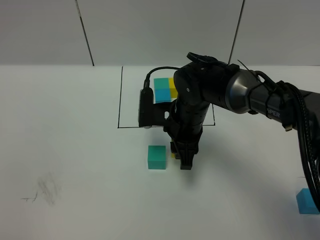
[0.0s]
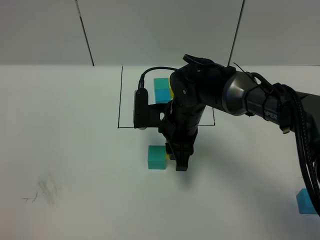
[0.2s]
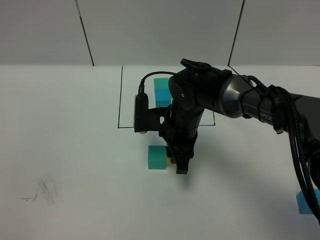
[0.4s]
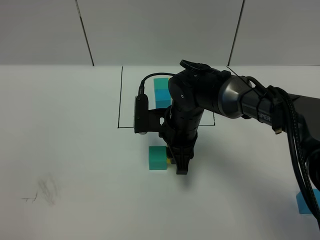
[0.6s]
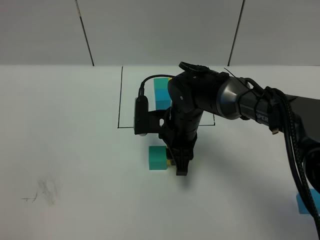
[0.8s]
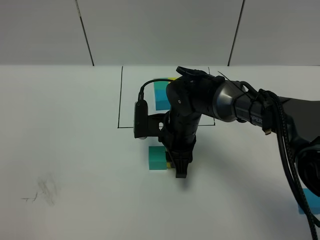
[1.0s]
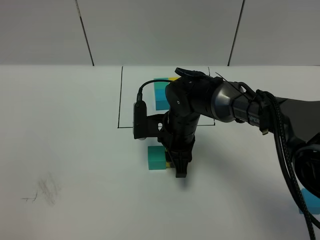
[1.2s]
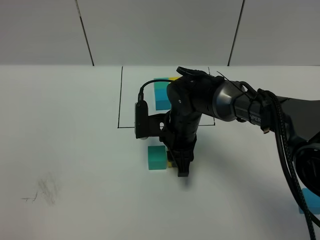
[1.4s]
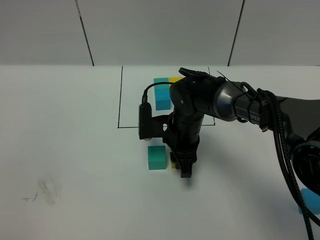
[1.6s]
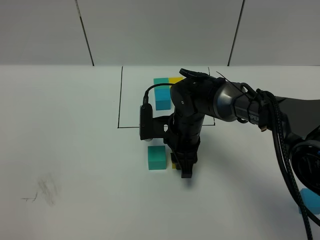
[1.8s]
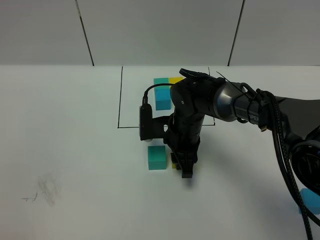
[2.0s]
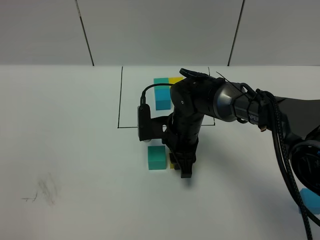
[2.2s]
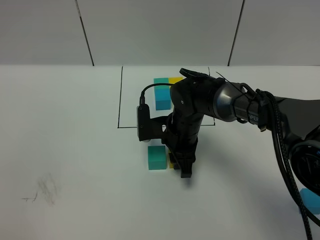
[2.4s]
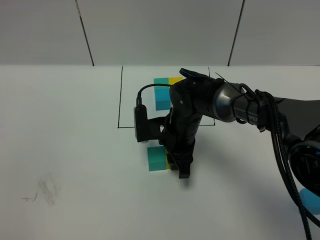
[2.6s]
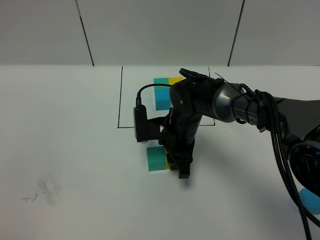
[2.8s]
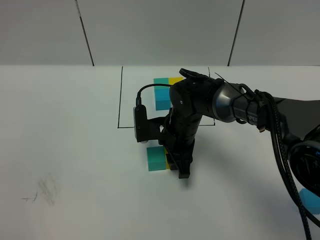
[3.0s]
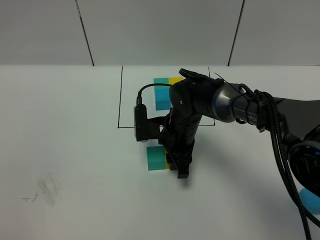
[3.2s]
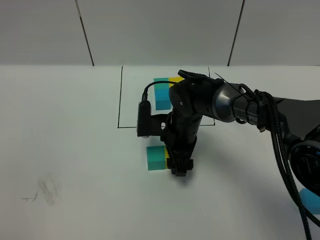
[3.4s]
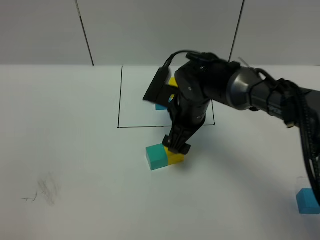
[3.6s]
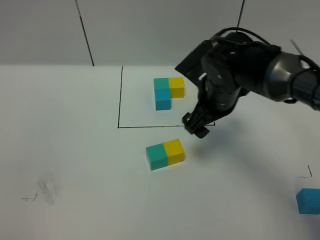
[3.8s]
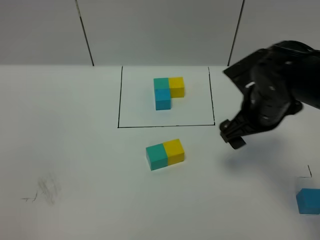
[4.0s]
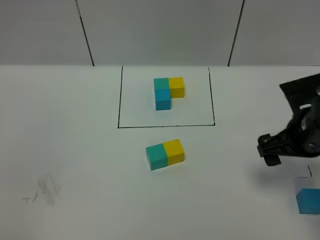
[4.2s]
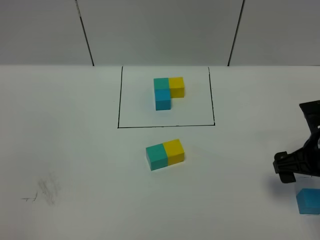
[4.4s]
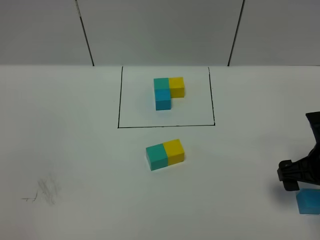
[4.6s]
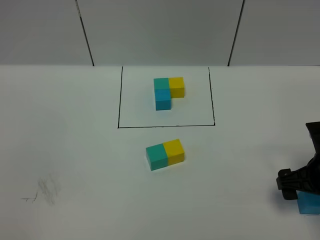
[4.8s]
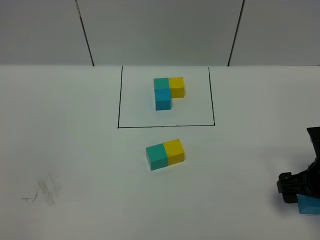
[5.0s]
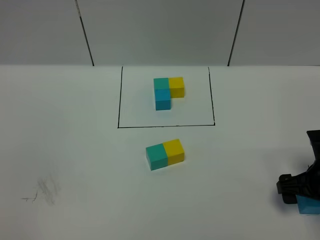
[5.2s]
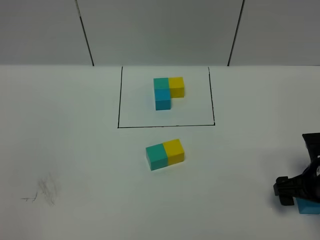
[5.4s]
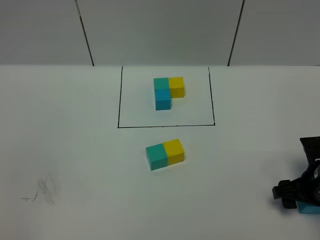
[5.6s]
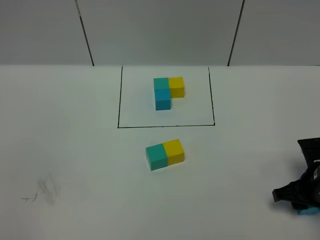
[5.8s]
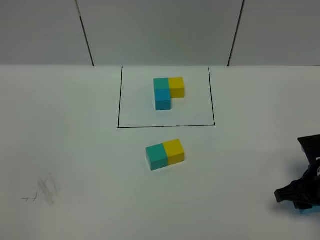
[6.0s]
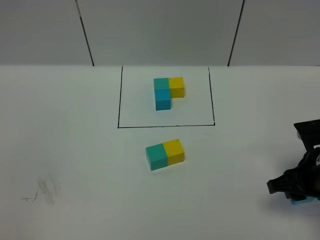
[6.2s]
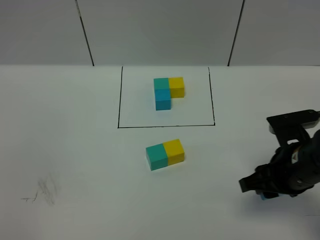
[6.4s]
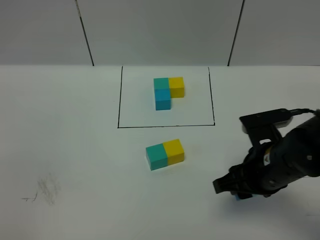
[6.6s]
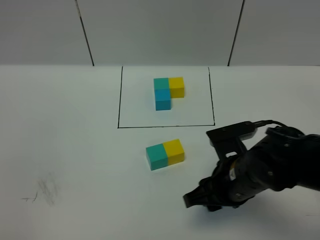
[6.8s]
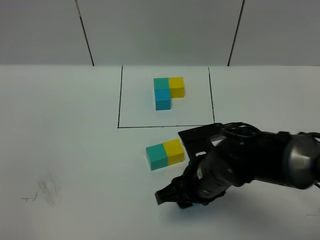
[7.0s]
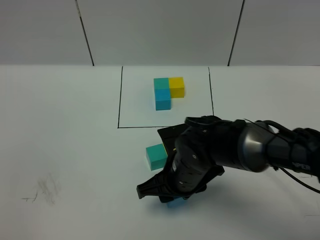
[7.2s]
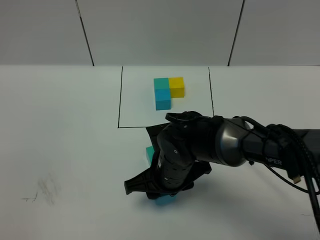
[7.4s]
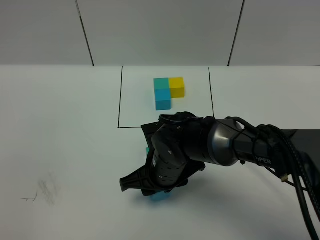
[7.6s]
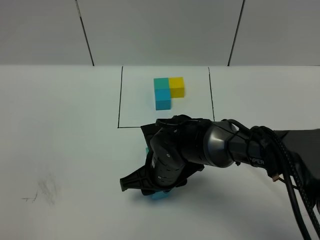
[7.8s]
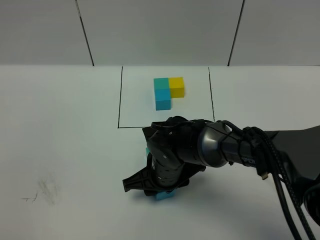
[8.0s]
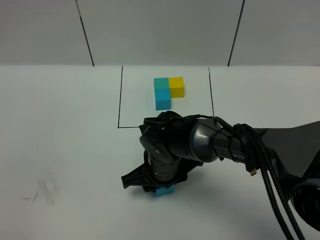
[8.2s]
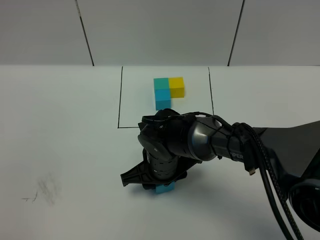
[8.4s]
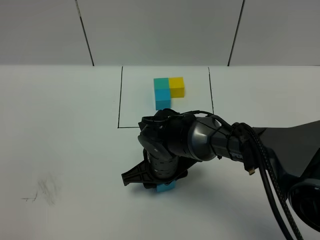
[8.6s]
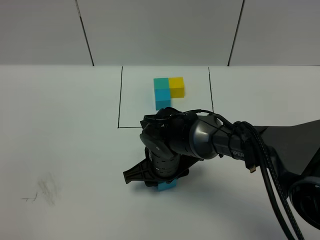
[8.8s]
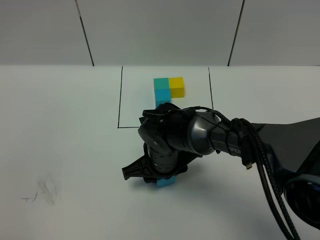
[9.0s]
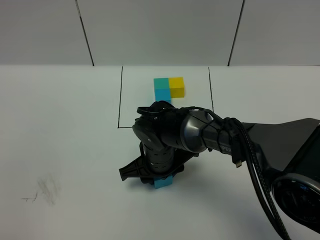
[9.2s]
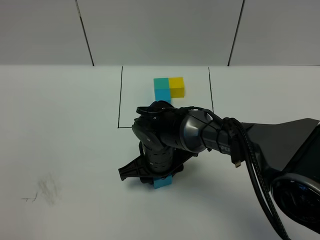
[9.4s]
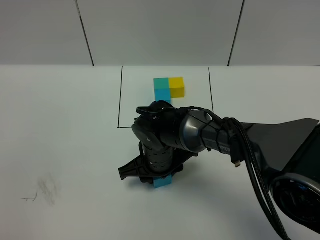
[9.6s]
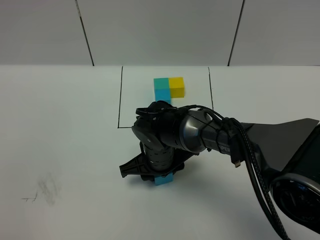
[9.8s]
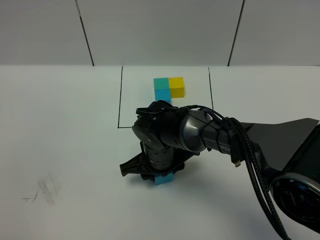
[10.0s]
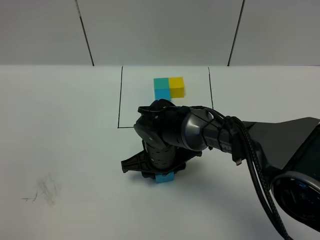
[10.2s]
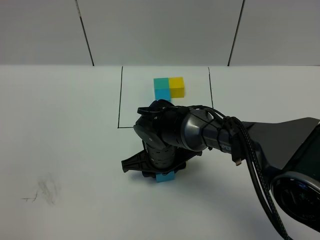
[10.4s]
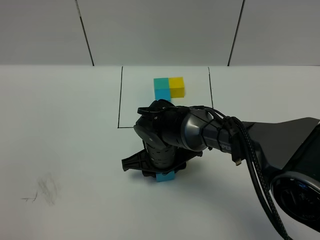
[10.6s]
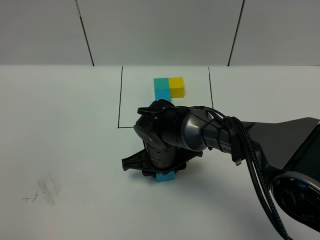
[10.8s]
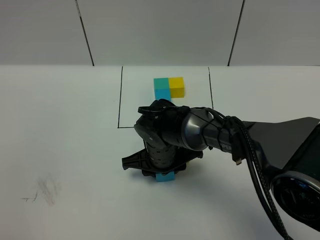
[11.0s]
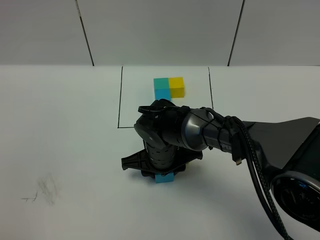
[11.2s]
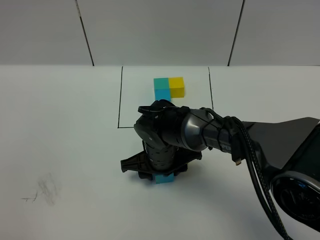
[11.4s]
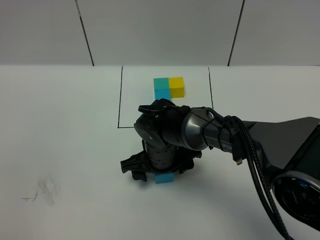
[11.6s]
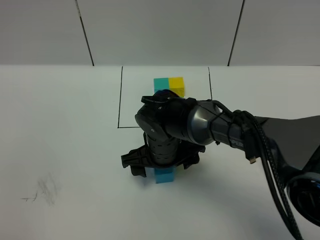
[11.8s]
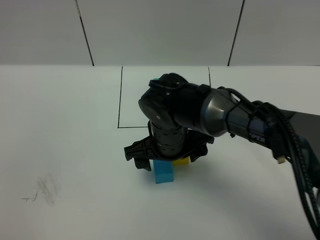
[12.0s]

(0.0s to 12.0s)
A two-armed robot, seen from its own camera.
Task of the whole recording: According to the building block template in front, assemble the scattered blocks together.
Step, 0.0s - 3.8s: Put the yellow cube on the right of the green cube.
0.0s - 3.0s: There are only small adjustments of the grippers.
3.0s - 4.4s: The right gripper travels to the right and backward by approximately 25 cm, and opens up.
4.4s - 6.0s: The right gripper moves downward, roughly 5 cm, and closes its fingers.
6.0s - 7.6s: The right gripper travels to the left by some 25 cm.
7.6s - 10.4s: The grippers move only a little.
10.4s - 12.0s: The right gripper moves upward, some 5 cm, and opens its fingers.

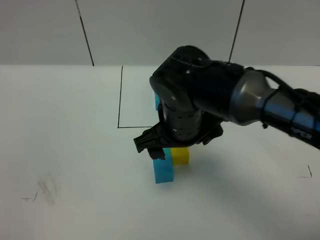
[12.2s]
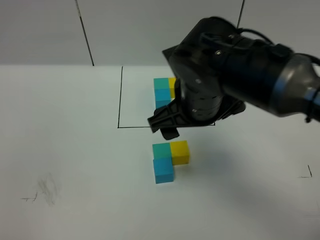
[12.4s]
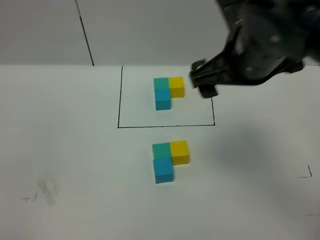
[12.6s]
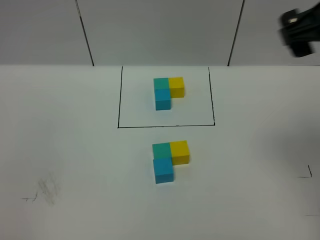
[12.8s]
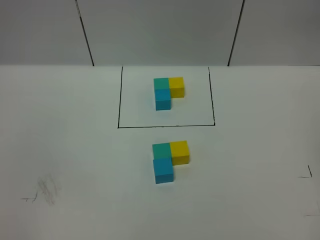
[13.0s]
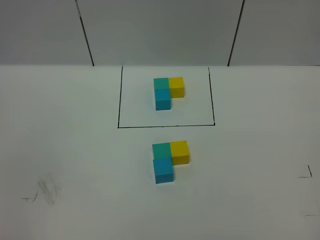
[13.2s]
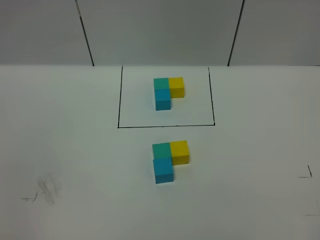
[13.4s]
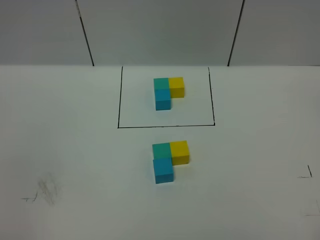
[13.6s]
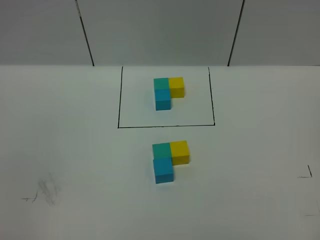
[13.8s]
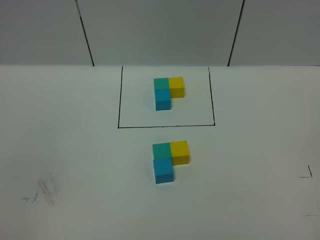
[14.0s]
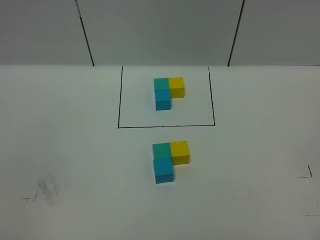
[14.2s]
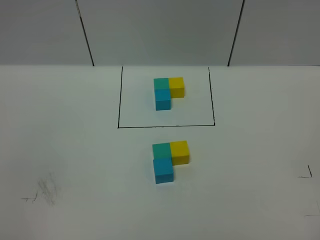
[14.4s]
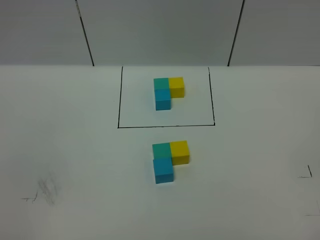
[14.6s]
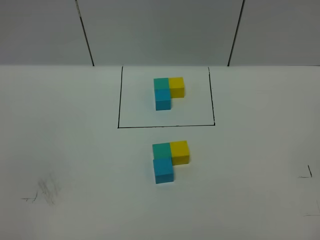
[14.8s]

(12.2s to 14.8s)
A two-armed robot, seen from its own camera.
Task of the whole recording: According to the building block template in front, assemble the scattered blocks together.
12.2s - 13.4s: The right gripper moves to the right, backward and upward, about 50 cm.
